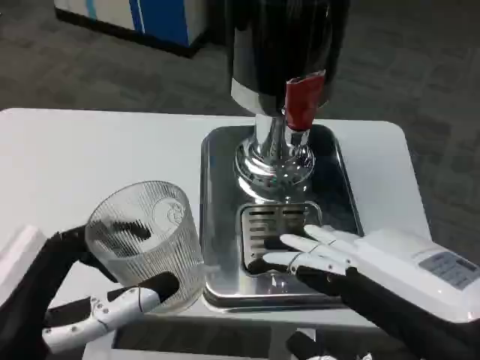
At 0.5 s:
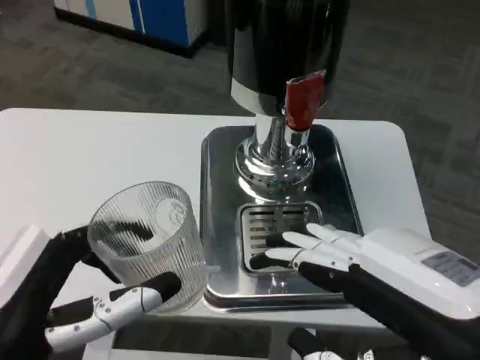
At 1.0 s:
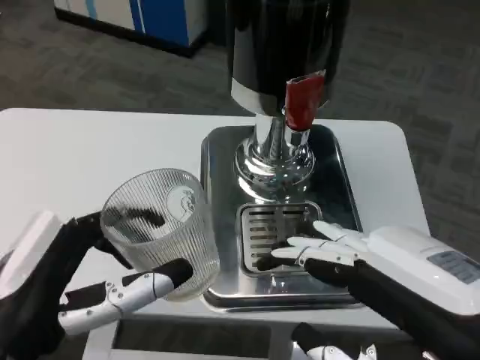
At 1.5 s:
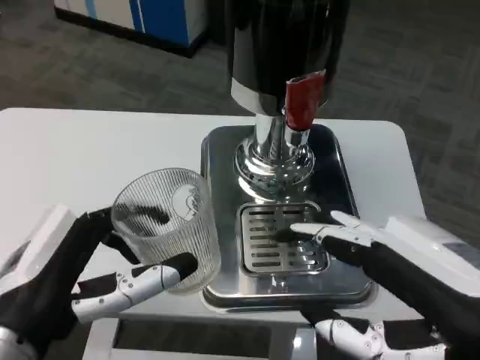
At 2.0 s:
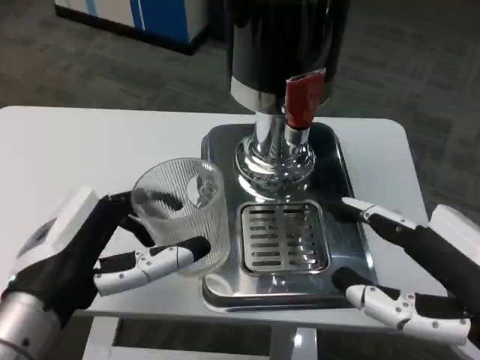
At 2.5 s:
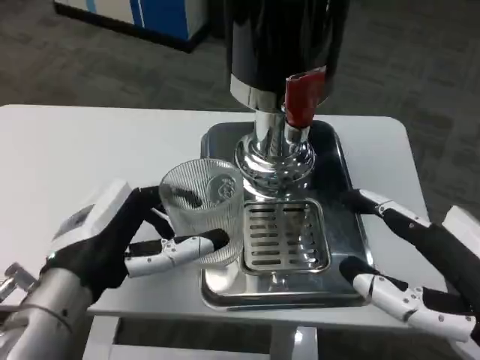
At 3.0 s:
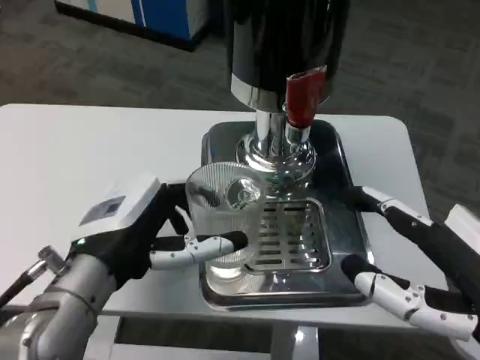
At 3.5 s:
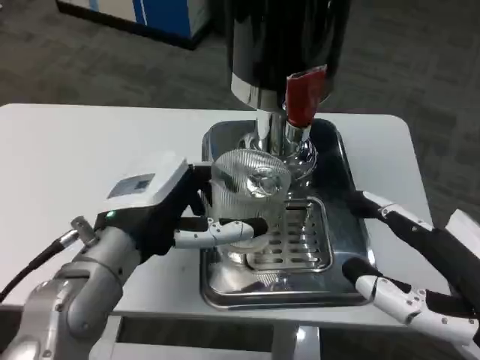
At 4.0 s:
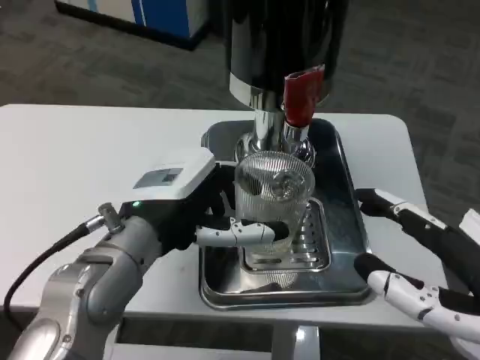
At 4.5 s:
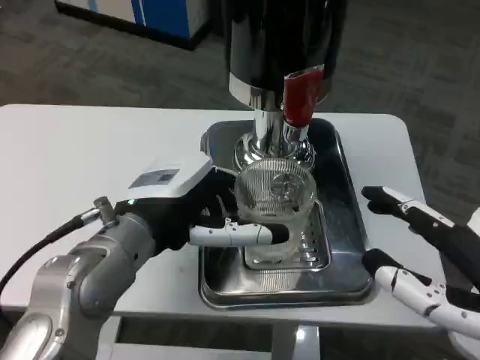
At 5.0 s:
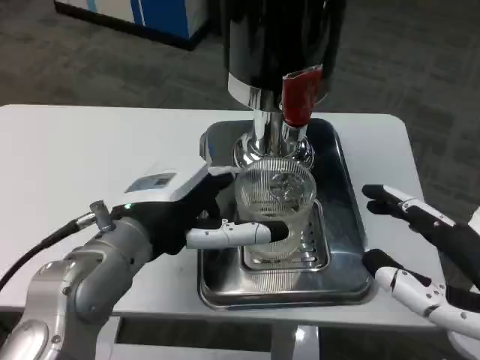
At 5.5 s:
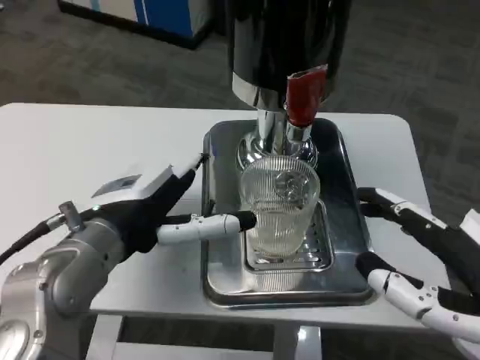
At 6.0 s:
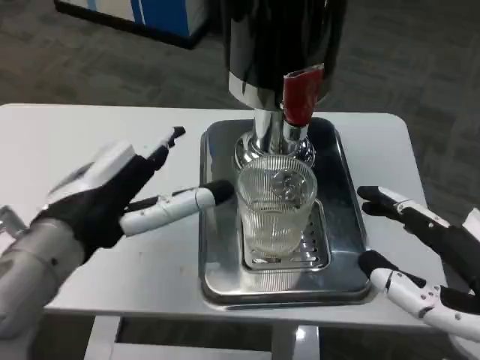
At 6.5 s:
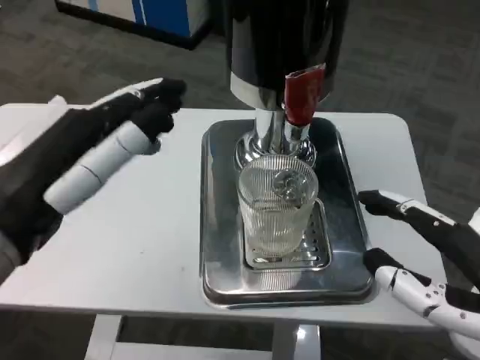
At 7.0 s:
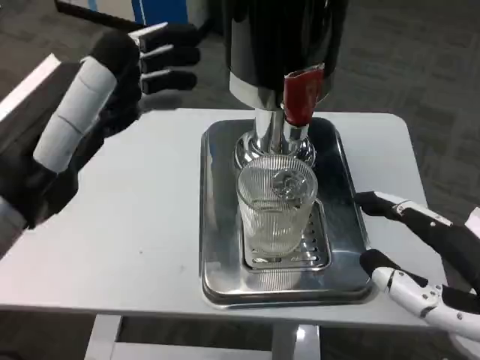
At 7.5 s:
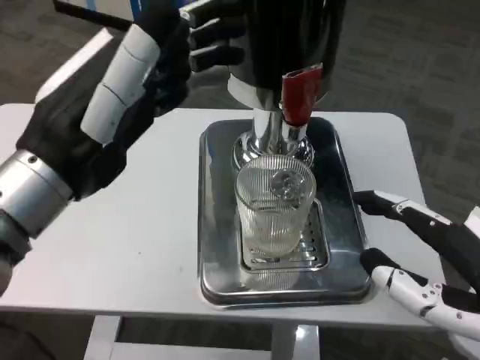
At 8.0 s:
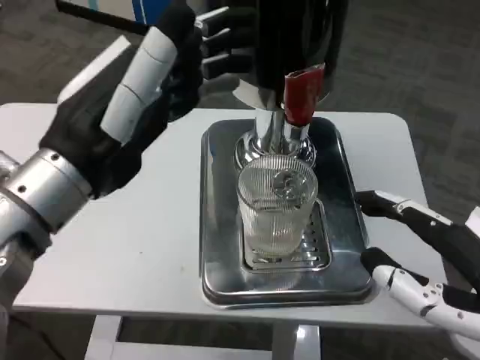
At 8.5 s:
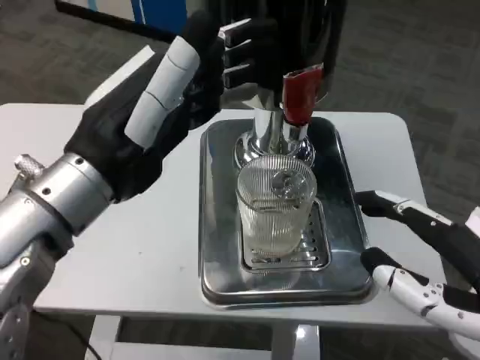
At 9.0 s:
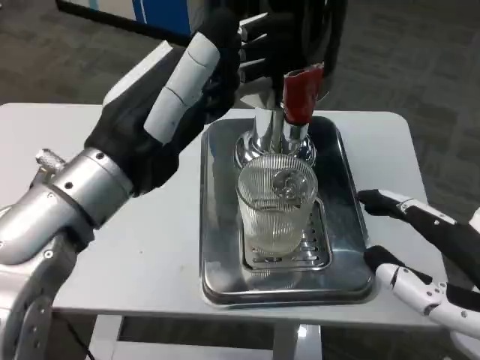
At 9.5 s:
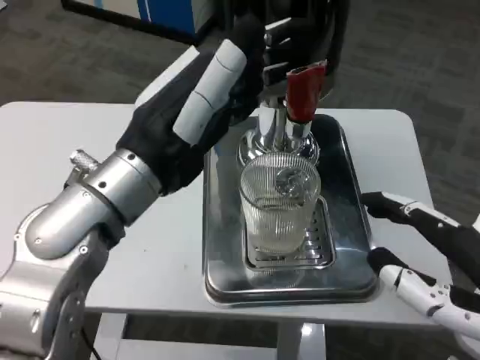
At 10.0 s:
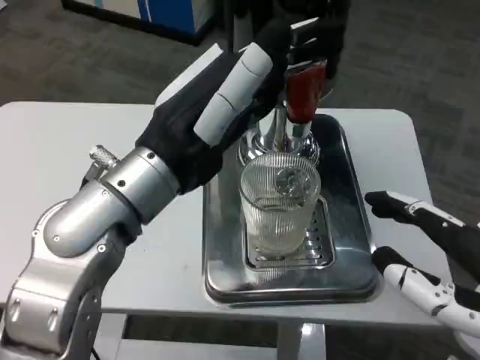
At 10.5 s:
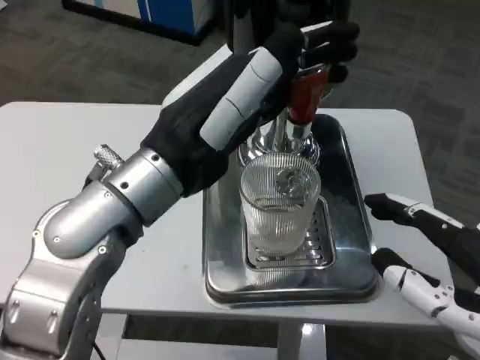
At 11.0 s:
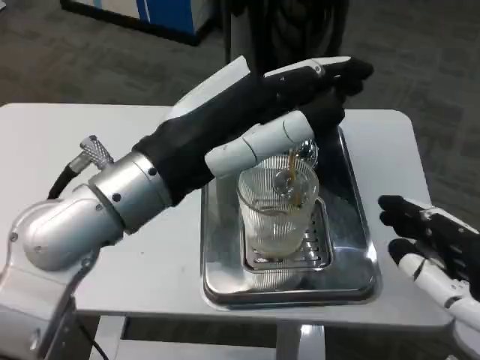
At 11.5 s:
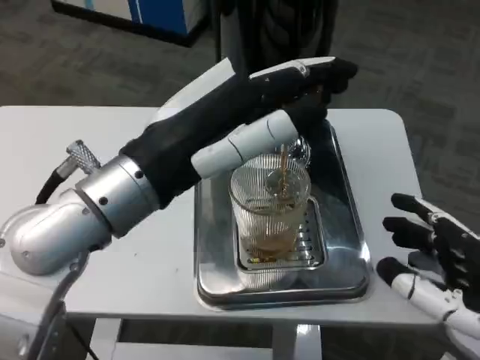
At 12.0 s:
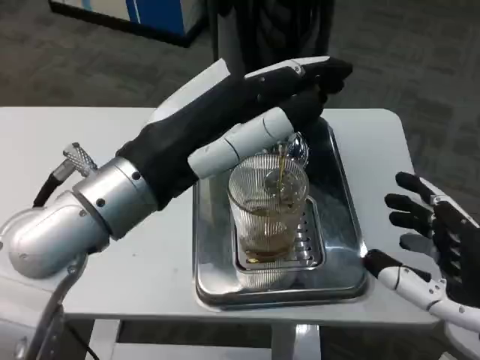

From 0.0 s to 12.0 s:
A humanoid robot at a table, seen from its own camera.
Task of the whole recording: Grasp the cup under the faucet to collect the drink, then remove the cup.
From 0.0 s to 2.0 s: The left hand travels forward by roughly 5 cm.
From 2.0 s to 4.0 s: The left hand heads forward and to the right, covering roughly 10 cm.
From 4.0 s to 6.0 s: The left hand moves backward, some 5 cm.
From 8.0 s to 10.0 s: The left hand goes approximately 5 cm to the right.

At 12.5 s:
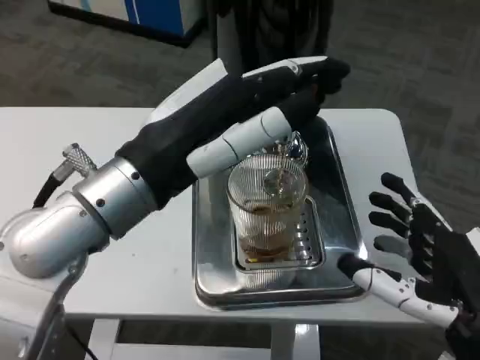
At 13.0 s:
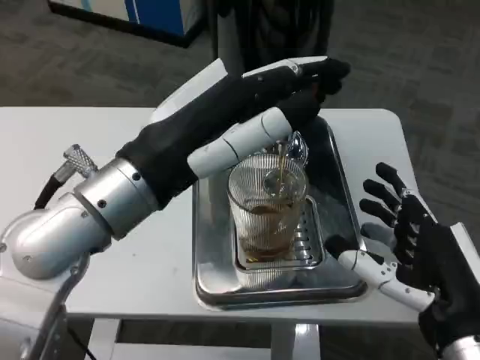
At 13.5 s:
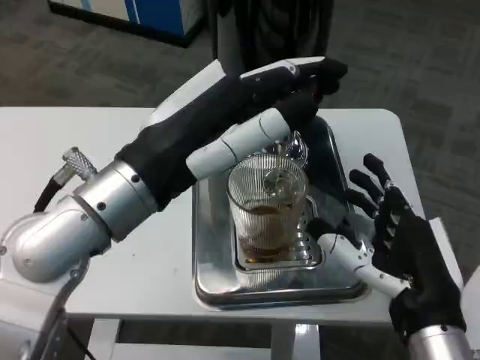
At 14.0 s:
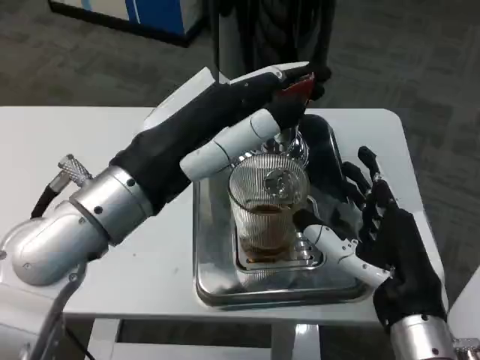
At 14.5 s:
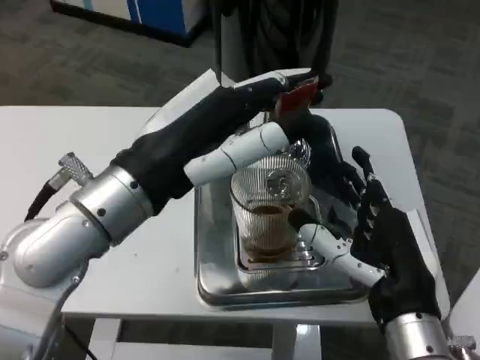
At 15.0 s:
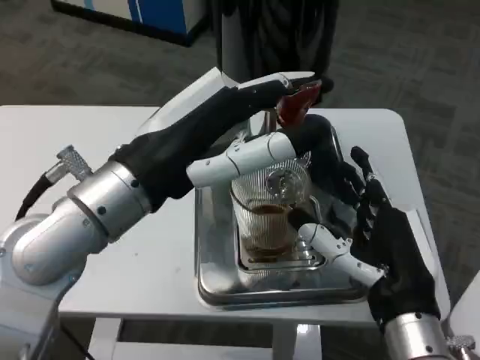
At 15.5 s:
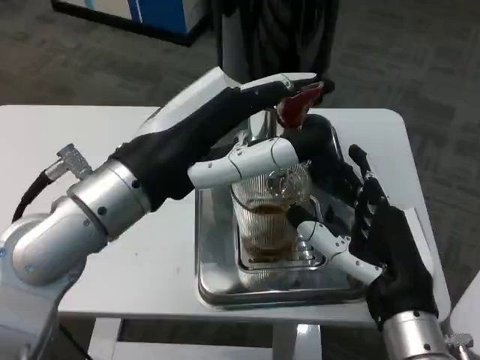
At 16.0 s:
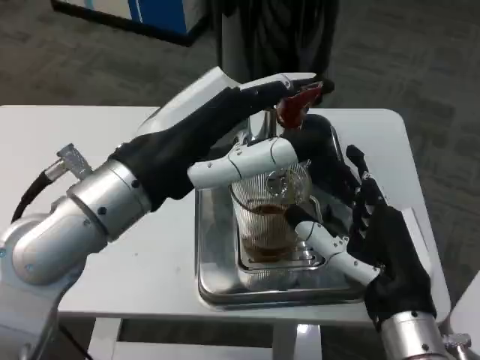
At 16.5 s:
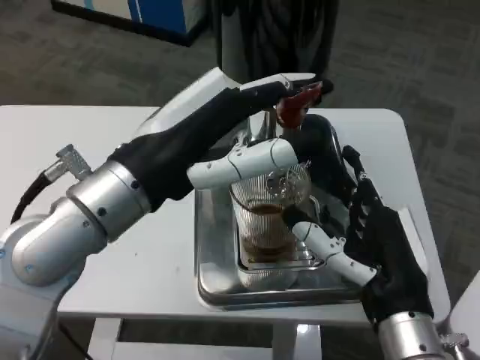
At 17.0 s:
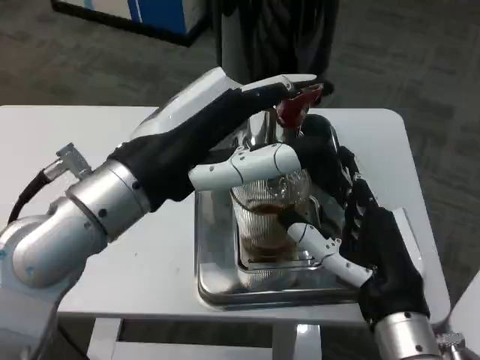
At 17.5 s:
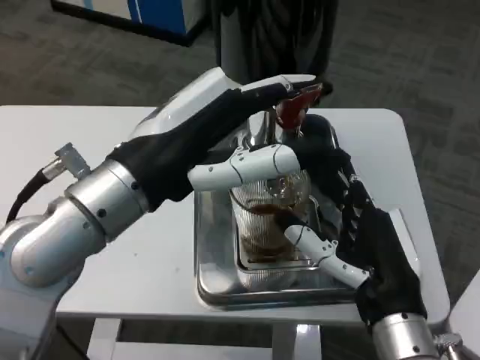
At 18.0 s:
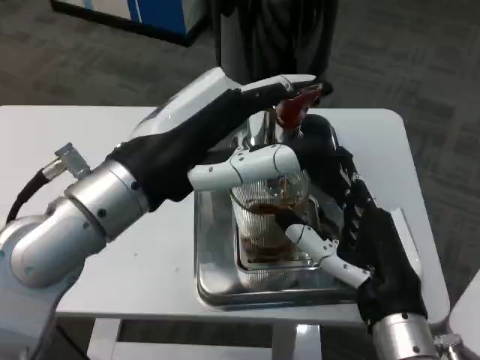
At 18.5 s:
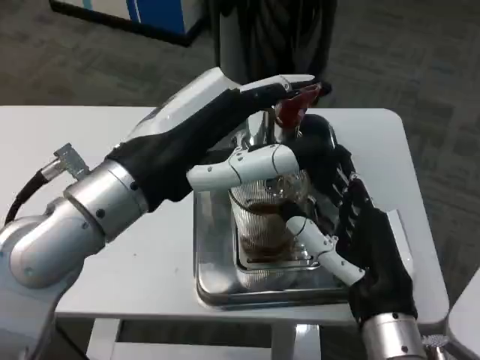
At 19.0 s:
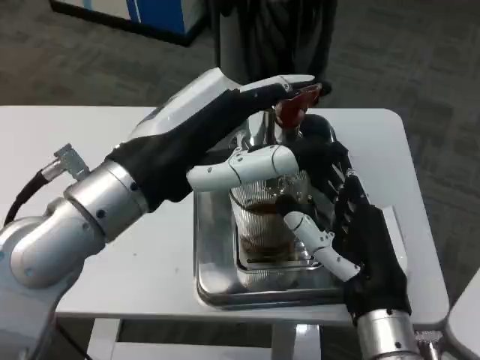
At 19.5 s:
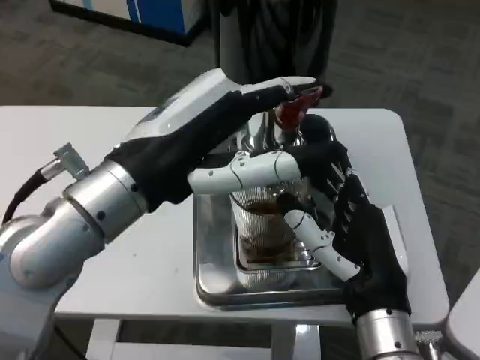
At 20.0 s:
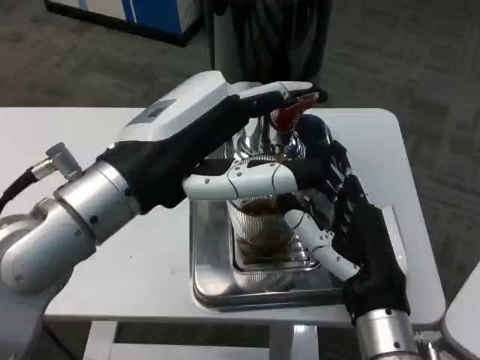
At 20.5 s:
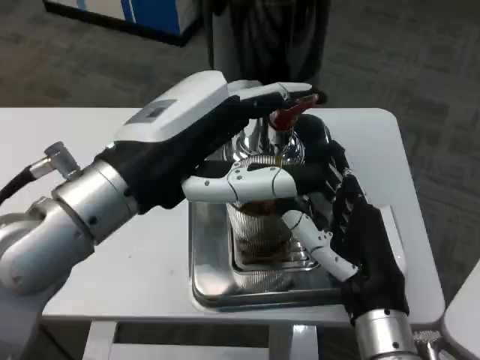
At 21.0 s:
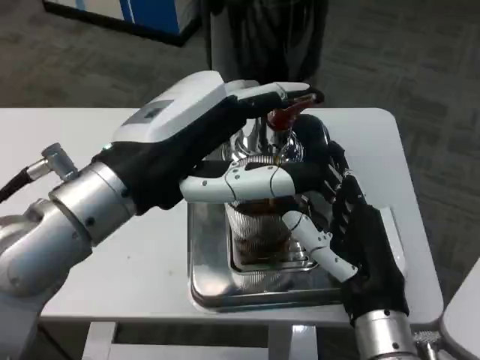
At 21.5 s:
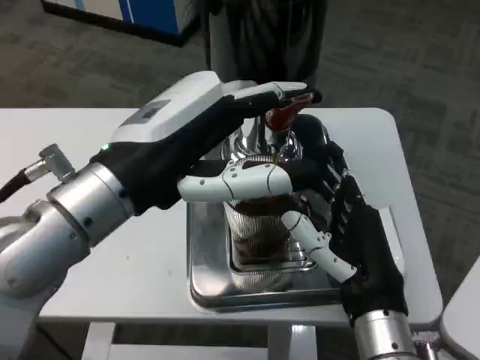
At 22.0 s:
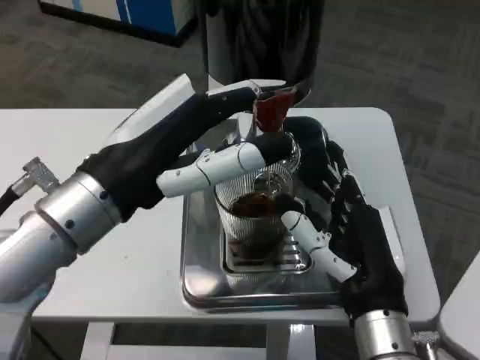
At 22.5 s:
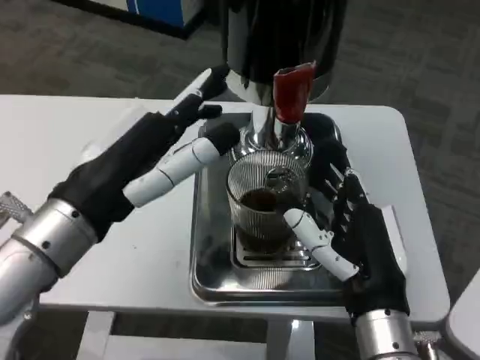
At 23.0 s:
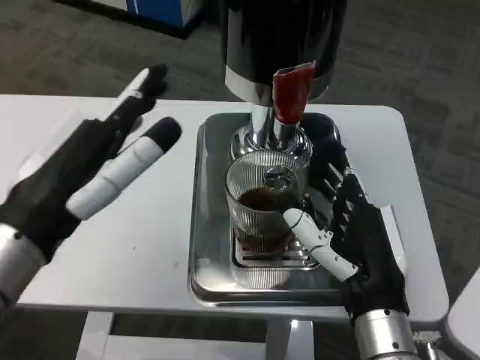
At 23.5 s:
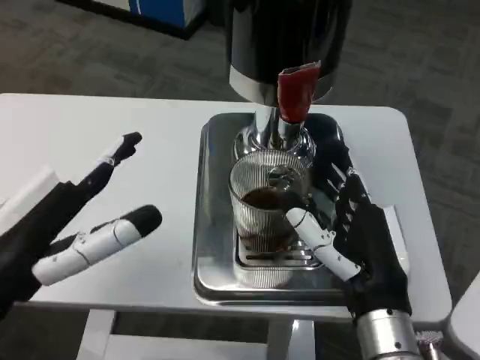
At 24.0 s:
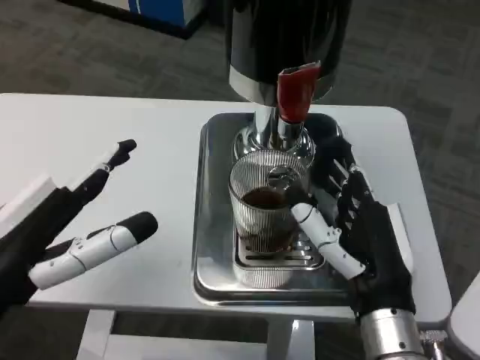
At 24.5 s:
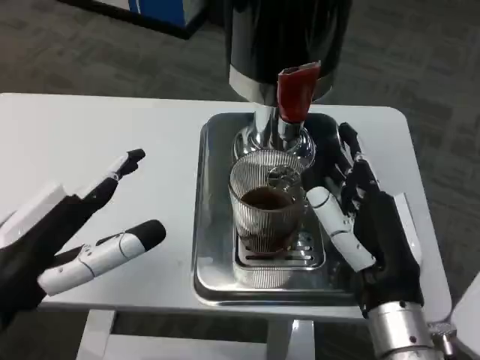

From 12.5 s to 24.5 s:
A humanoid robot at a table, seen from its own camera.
Task of the whole recording: Grasp the cup under the faucet to collect the drink, then remove the cup.
From 12.5 s to 14.5 s: The right hand is displaced to the left by approximately 5 cm.
From 14.5 s to 18.5 s: There are only small adjustments of the hands.
From 22.5 s to 24.5 s: The left hand travels to the left and backward by some 10 cm.

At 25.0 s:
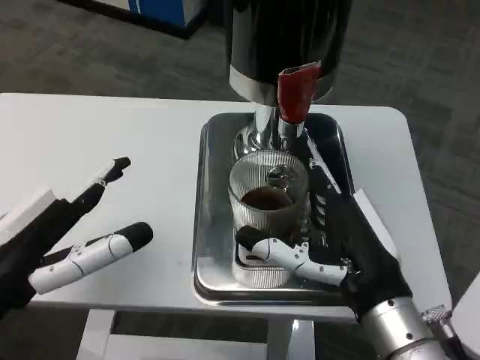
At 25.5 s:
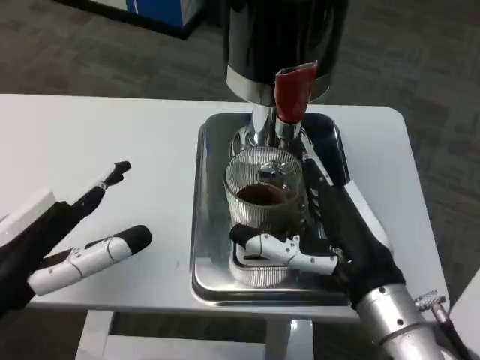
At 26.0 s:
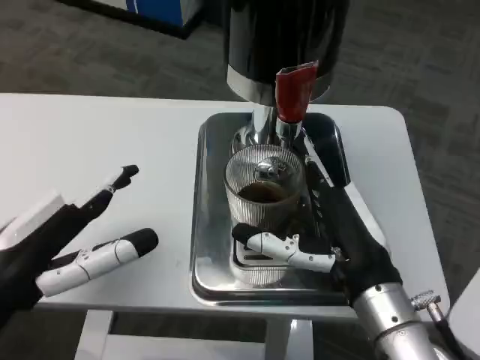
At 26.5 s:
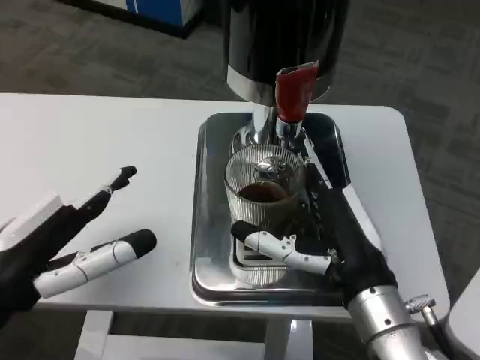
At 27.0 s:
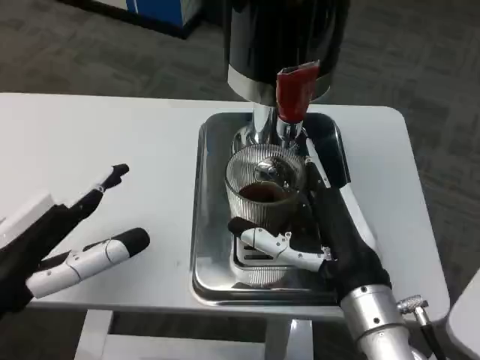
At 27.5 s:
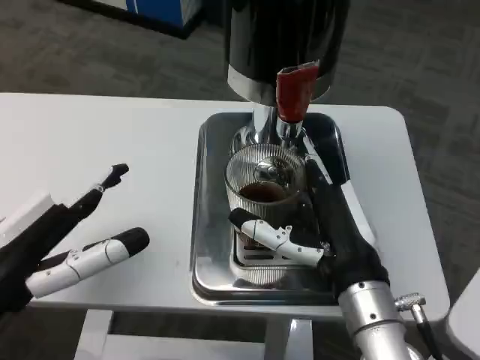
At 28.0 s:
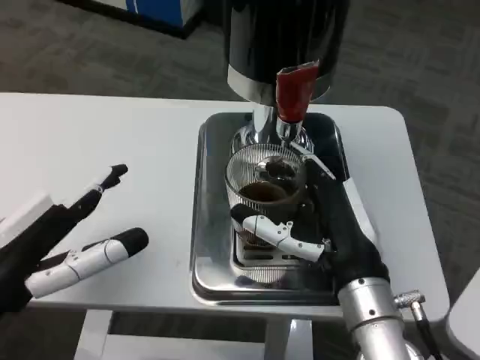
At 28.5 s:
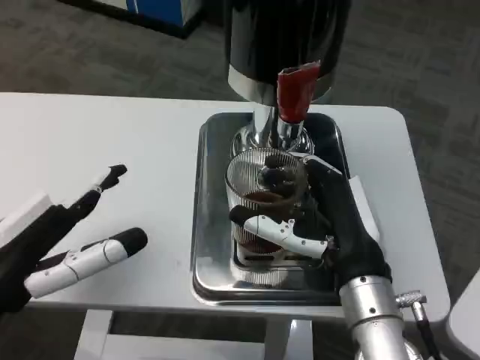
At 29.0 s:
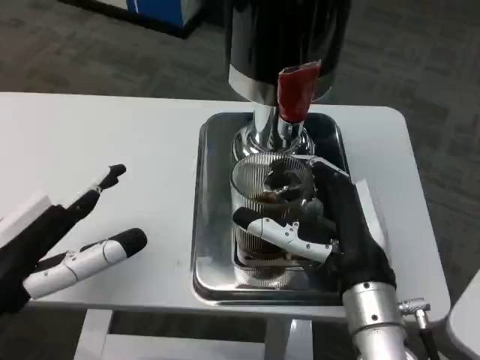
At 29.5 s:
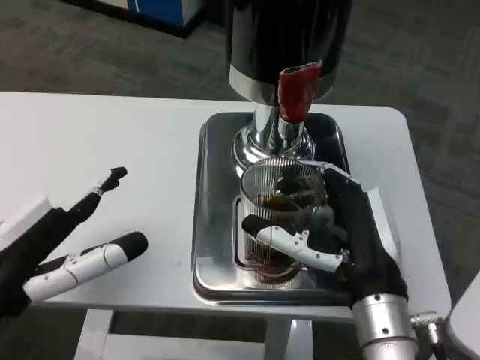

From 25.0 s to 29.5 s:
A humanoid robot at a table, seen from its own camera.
Task of the whole recording: Grasp the cup under the faucet to collect the drink, then remove the cup.
From 25.0 s to 29.5 s: The hands stay close to where they were, moving slightly.
